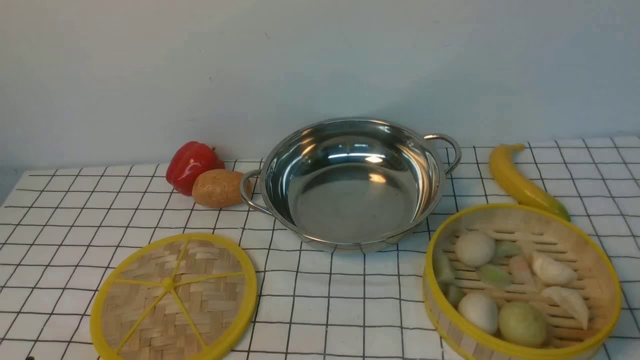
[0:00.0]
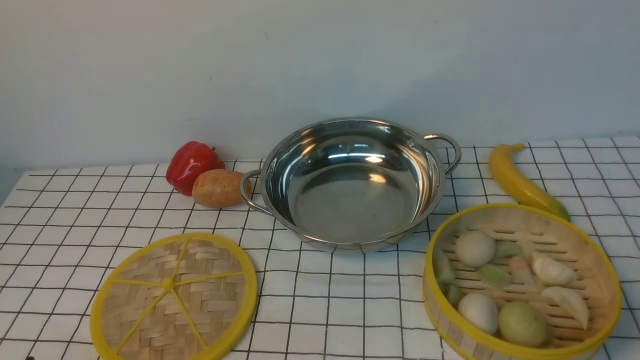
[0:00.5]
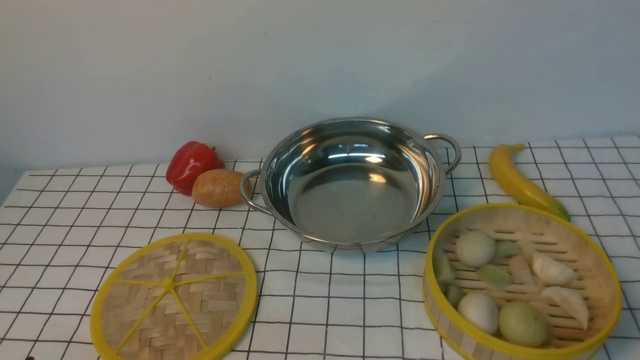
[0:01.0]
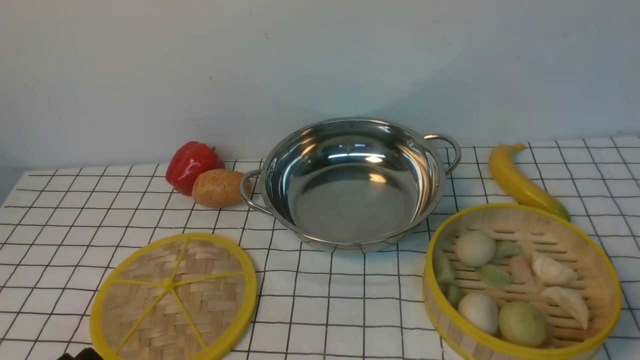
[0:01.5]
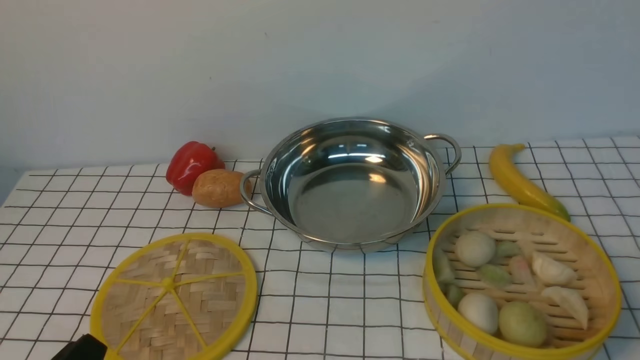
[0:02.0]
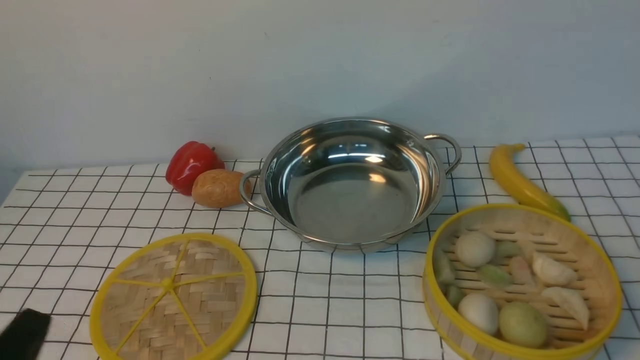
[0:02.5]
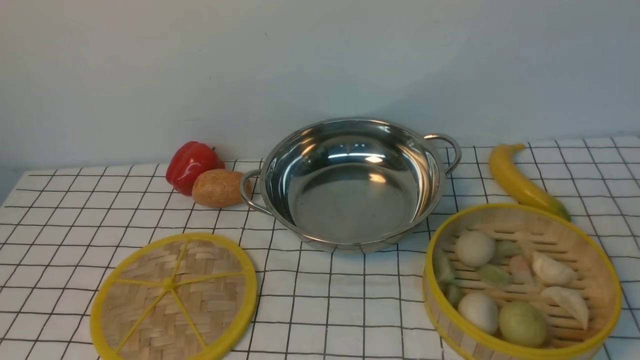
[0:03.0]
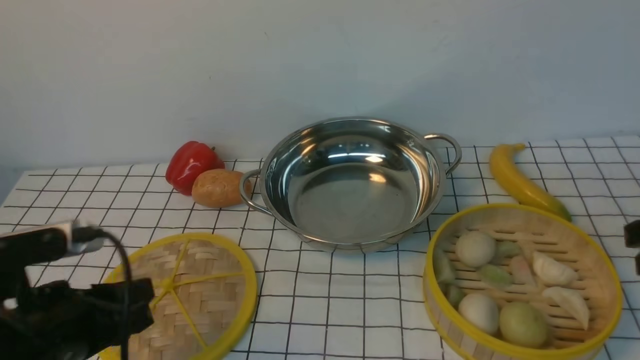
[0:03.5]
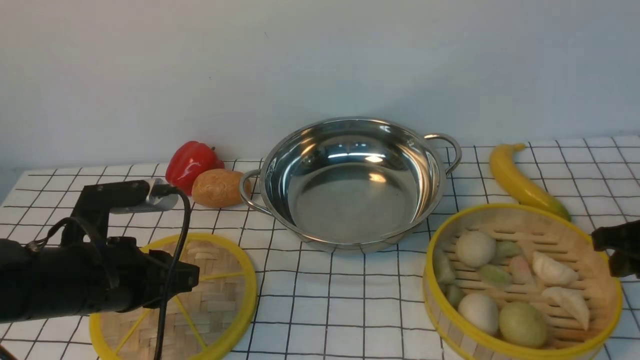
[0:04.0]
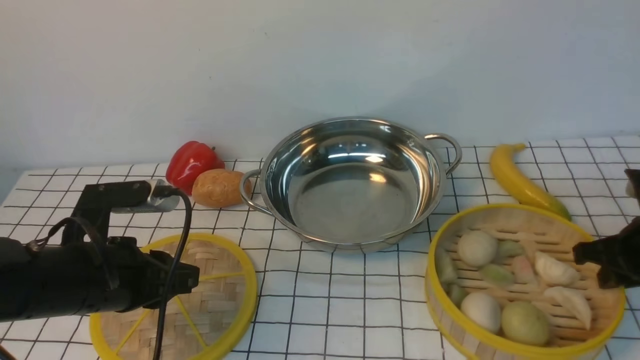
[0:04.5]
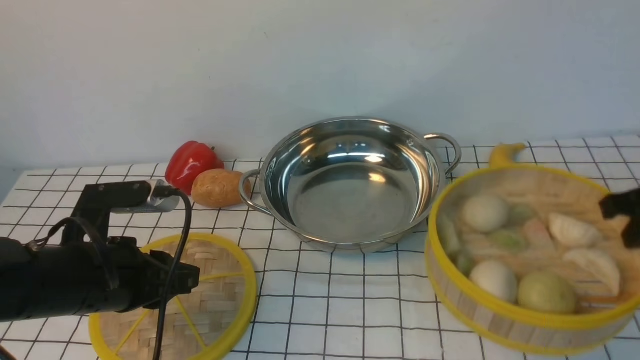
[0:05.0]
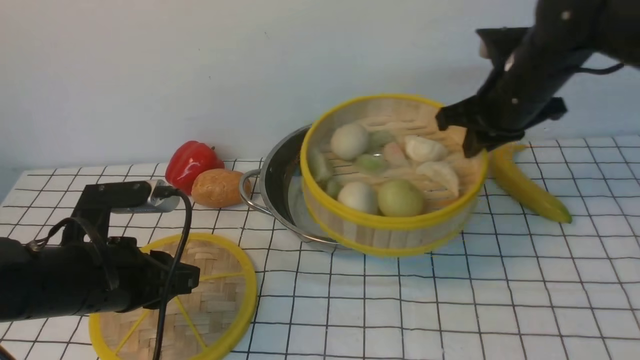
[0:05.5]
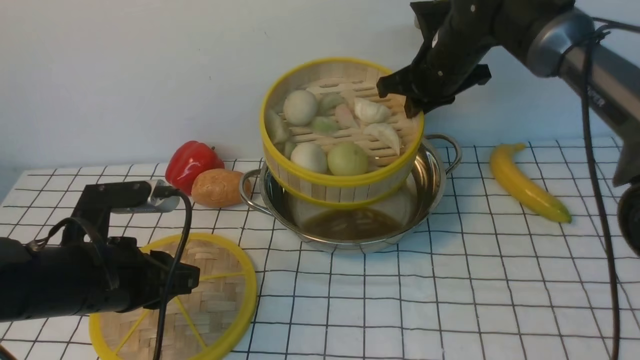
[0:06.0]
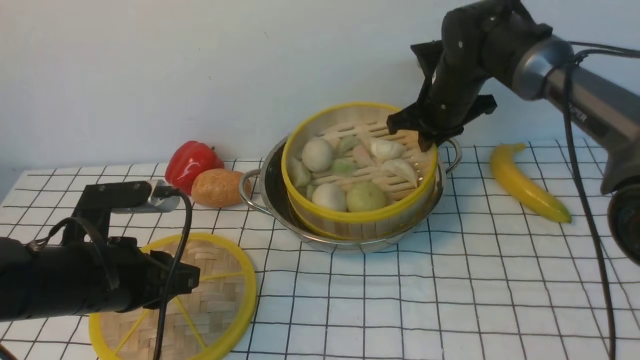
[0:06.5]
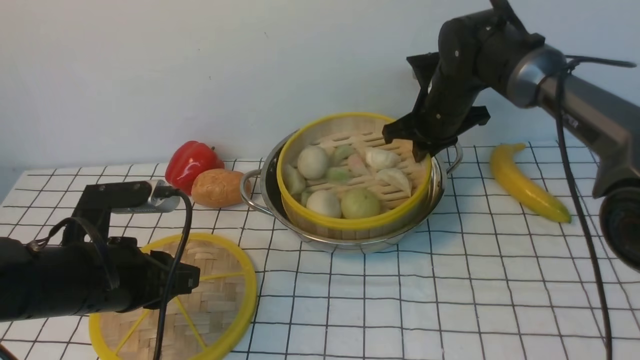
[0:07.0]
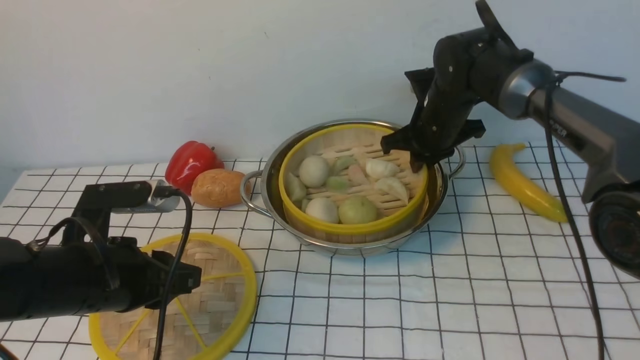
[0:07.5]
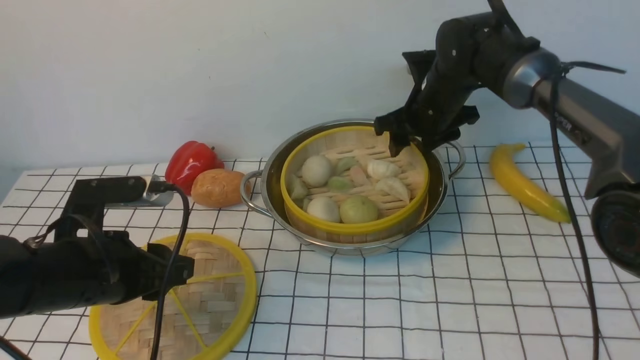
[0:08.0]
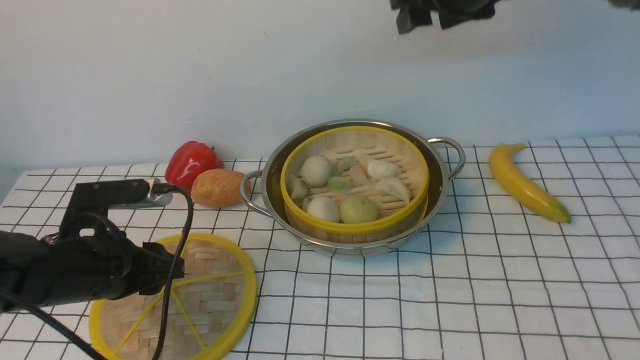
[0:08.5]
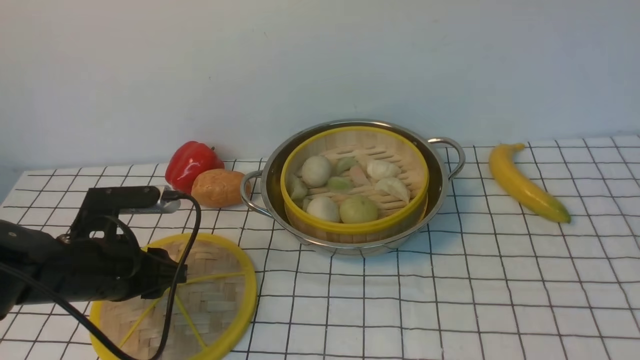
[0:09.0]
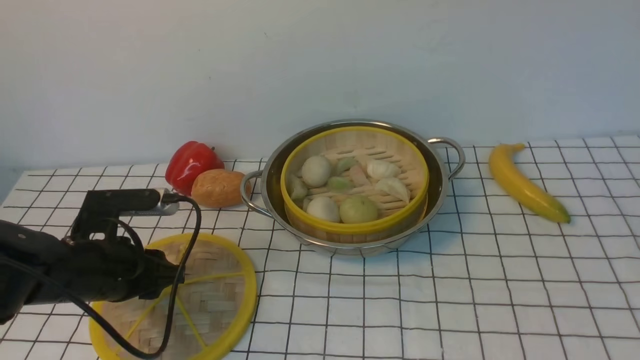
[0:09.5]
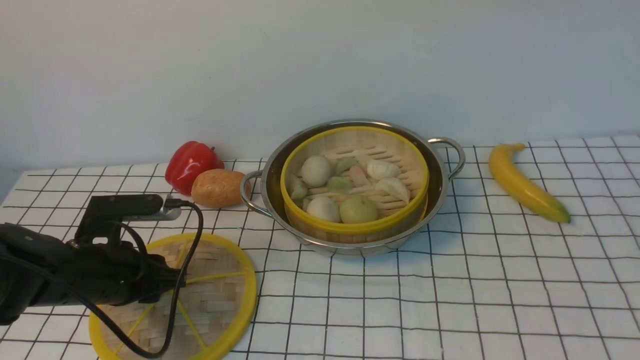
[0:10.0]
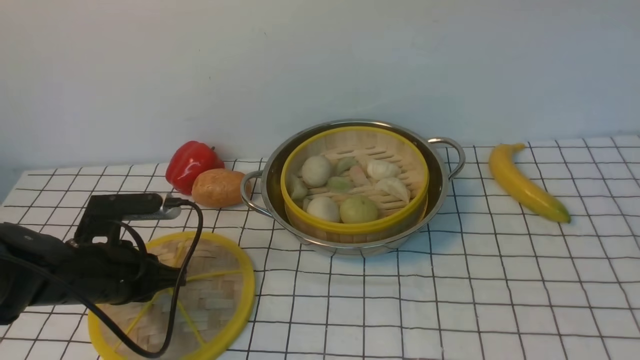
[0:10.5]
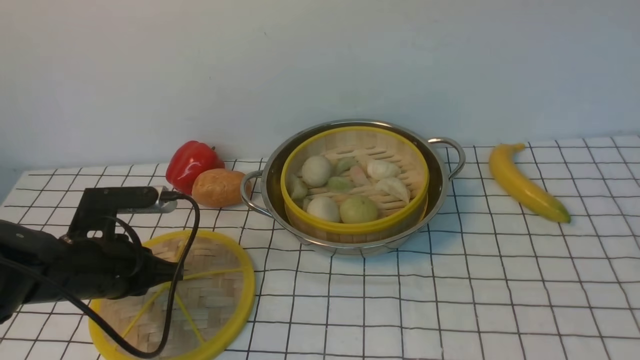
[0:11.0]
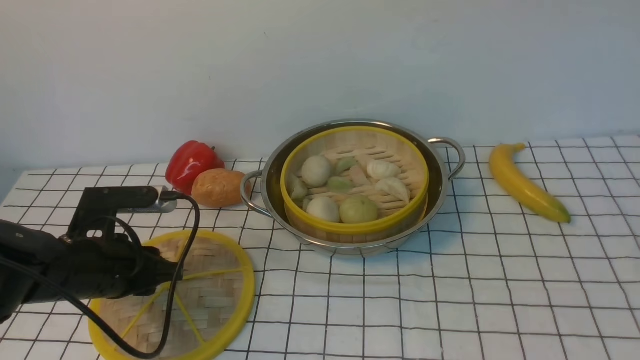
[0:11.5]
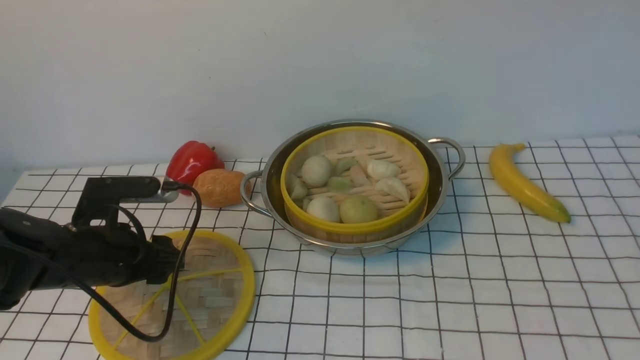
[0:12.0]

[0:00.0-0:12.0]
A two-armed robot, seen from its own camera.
Task of the whole recording: place the steamer in the pot on the white tablecloth, and put the lid on the steamer.
Step, 0:00.0 to 0:04.5: use the right arm to lift the steamer closest to it.
Step, 0:05.0 to 0:08.0: use the right arm to put the steamer into the iron steamer pot in the middle.
0:02.0 to 0:04.0: The grippers both shift forward by some 20 cm.
0:04.0 to 0:06.0: The right gripper travels forward and to the left by approximately 30 cm, and closes up.
0:06.0 to 0:08.0: The right gripper opens up.
0:08.0 to 0:10.0: The right gripper goes roughly 40 cm upward and backward. Meanwhile the left gripper travels downward by about 5 cm.
0:10.0 to 0:12.0: The left gripper opens up.

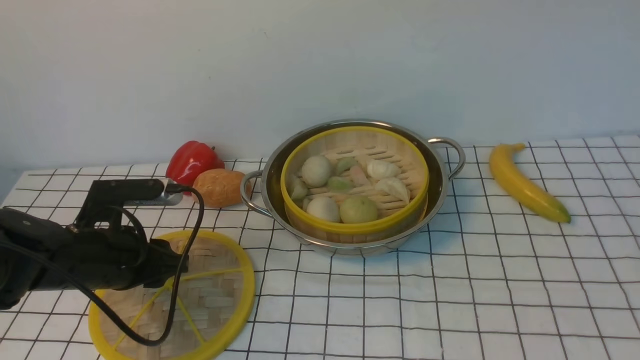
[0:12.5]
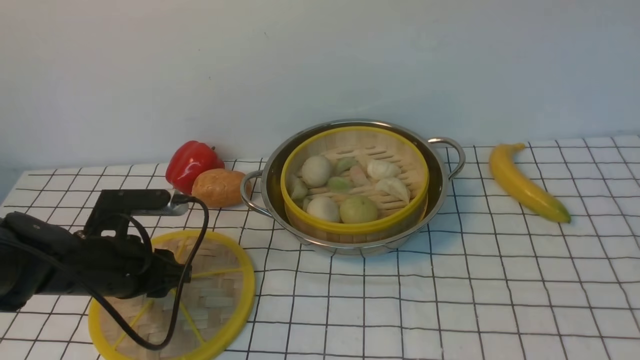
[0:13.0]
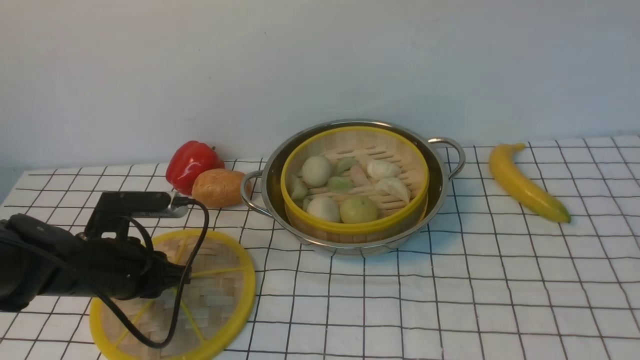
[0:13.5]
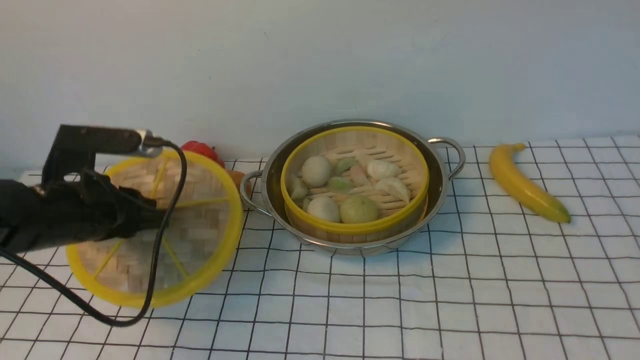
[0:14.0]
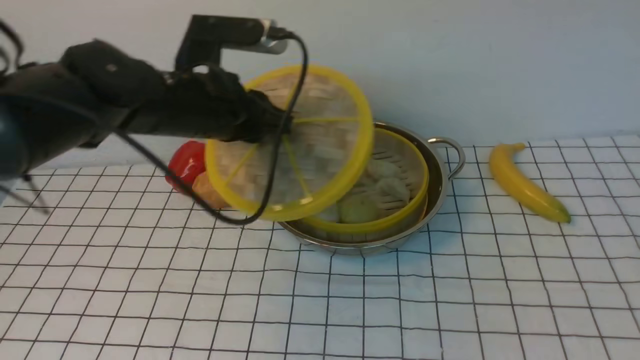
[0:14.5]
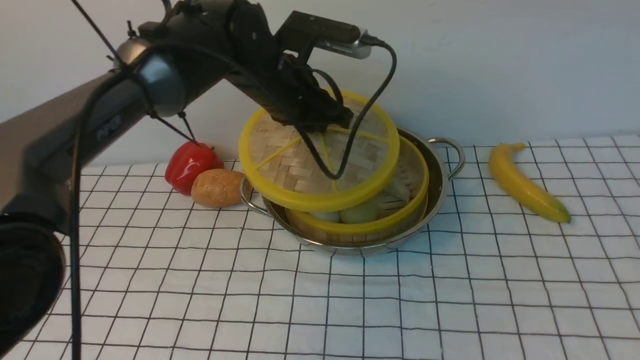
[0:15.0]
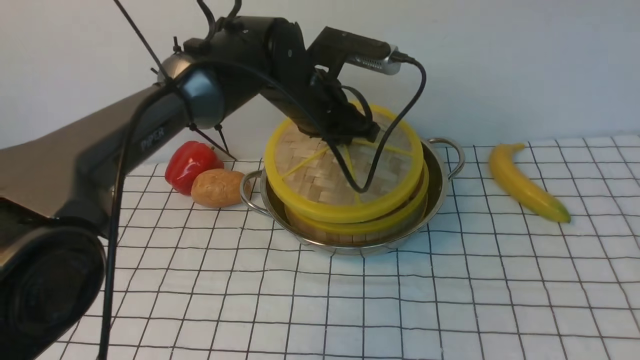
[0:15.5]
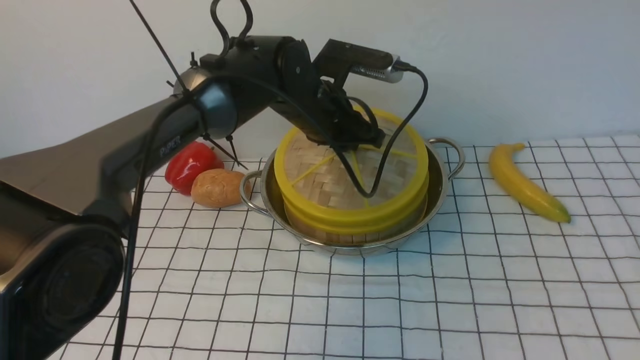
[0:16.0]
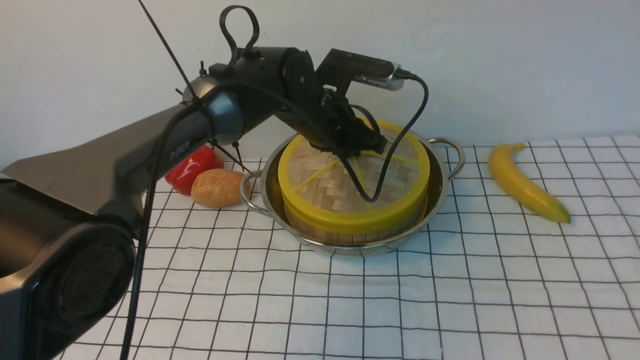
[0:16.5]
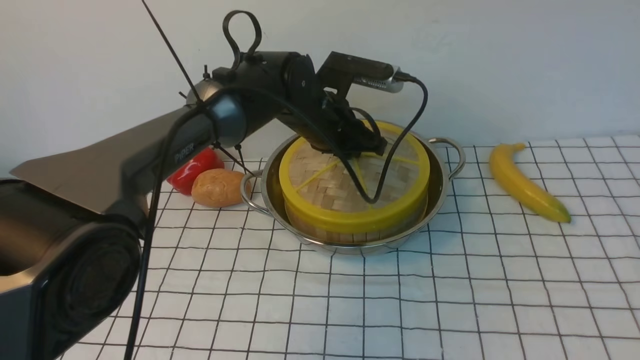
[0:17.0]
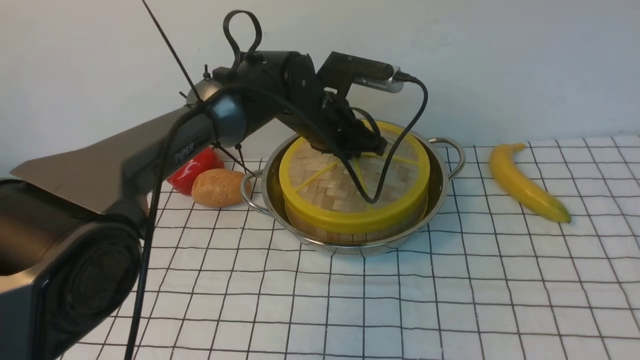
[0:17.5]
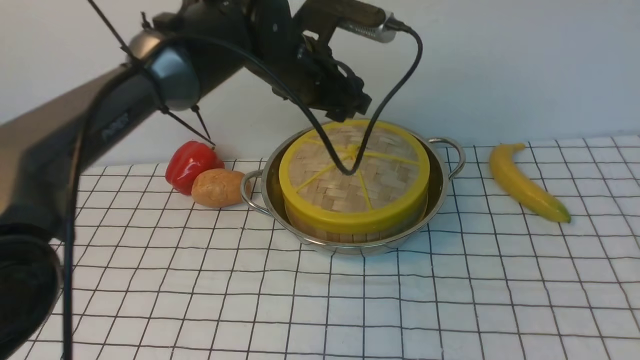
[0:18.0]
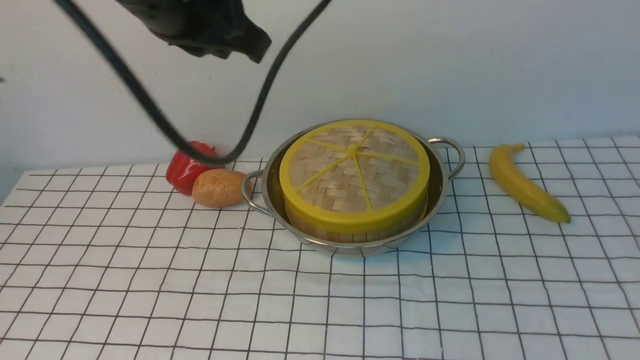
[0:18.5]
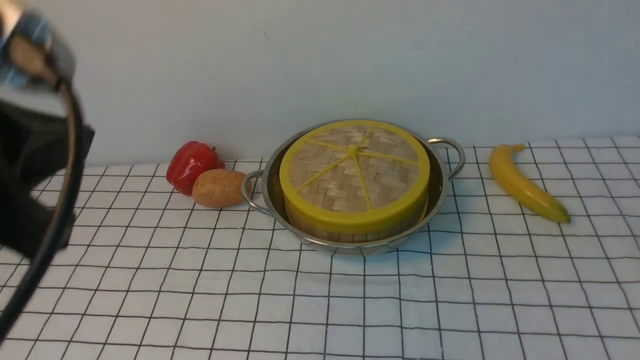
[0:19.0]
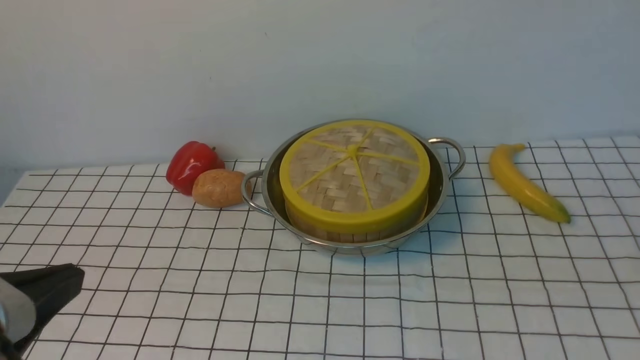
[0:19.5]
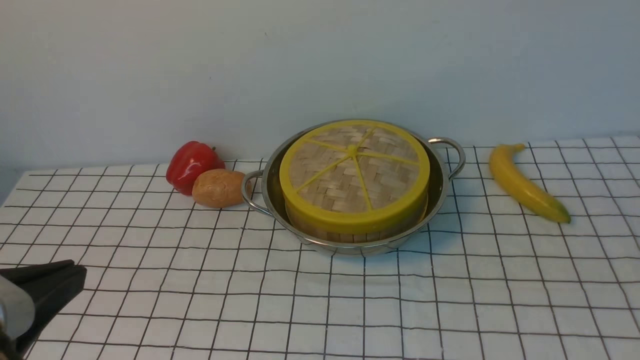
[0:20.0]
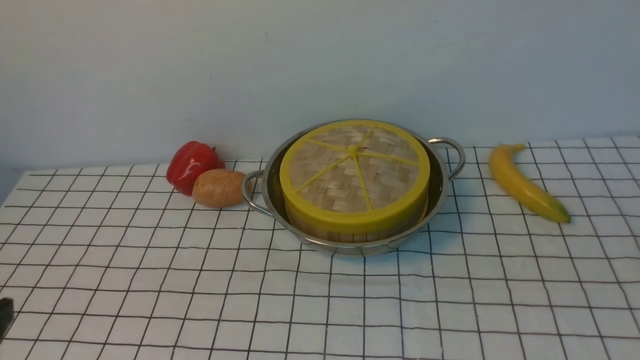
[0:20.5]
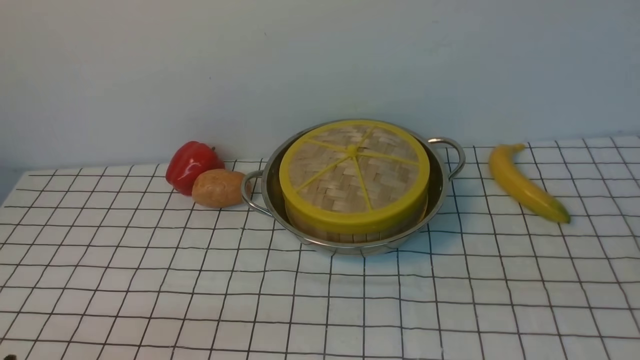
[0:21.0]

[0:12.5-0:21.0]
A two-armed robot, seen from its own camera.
Task of the whole recording: place the steamer in the pot on the white tablecloth, and put the lid on the steamer.
Step, 0:14.0 to 0:17.5: use the left arm to place the steamer lid on the steamer.
0:12.5 to 0:14.5: The left gripper is displaced upward, to the right and forward by roughly 20 cm, and closes its fingers.
0:14.5 to 0:16.5: The left gripper travels to the right, forward and downward by about 15 cm.
0:16.5 to 0:19.0: The left gripper shifts approximately 40 cm backward, upward and to the left, and opens and closes again. The right gripper moves downward and backward, about 25 cm, and closes.
0:19.0 to 0:21.0: The left gripper moves downward, approximately 20 cm.
